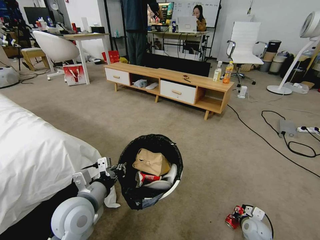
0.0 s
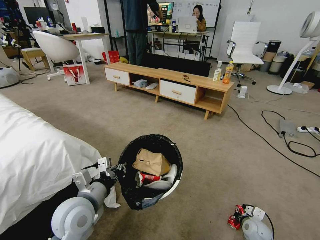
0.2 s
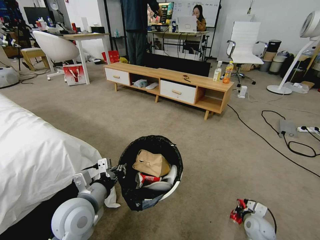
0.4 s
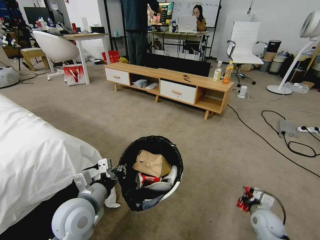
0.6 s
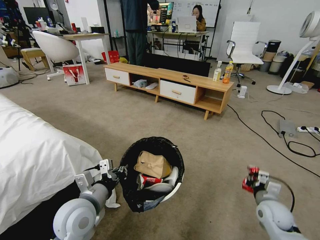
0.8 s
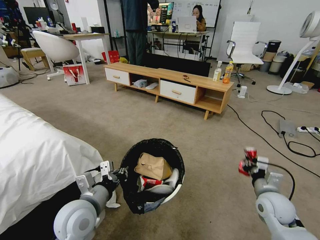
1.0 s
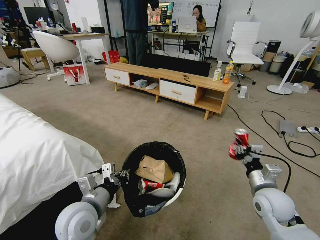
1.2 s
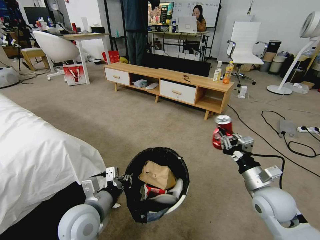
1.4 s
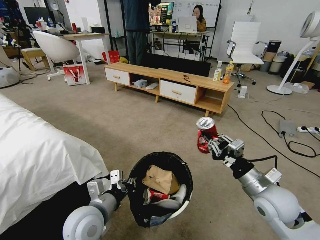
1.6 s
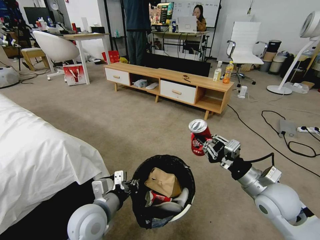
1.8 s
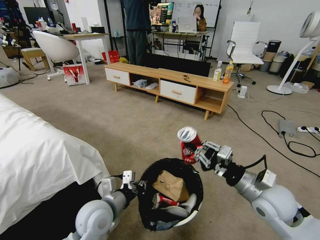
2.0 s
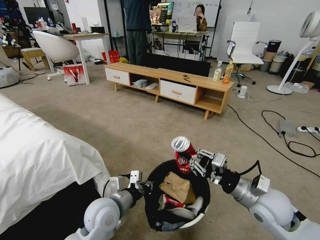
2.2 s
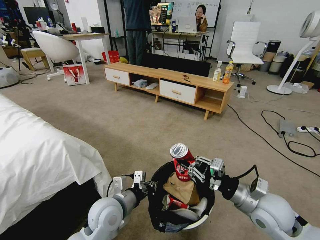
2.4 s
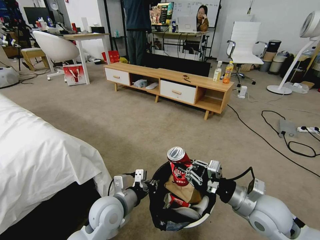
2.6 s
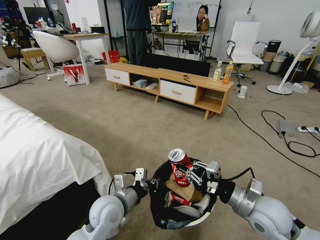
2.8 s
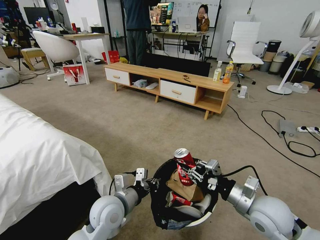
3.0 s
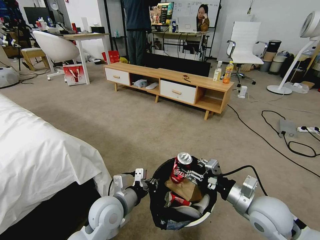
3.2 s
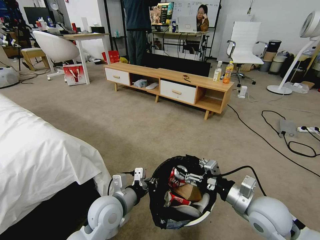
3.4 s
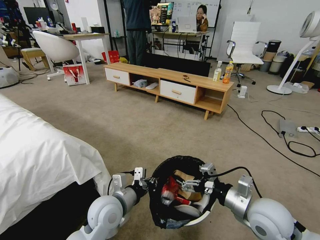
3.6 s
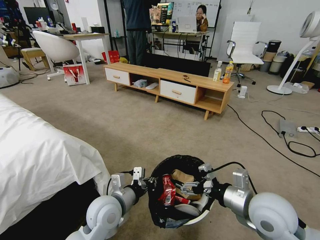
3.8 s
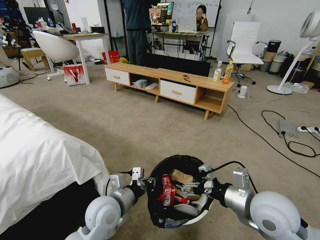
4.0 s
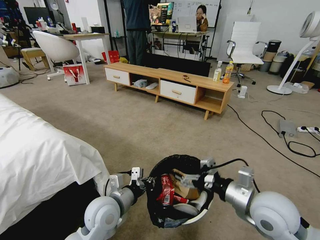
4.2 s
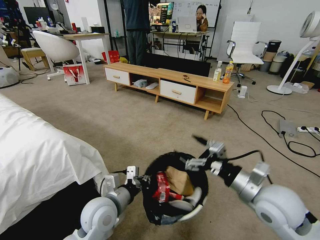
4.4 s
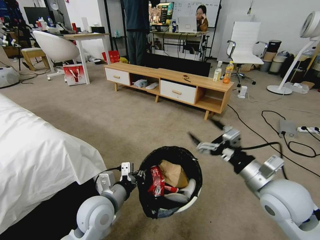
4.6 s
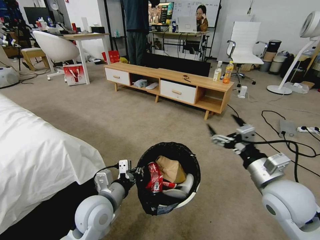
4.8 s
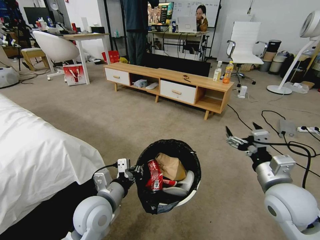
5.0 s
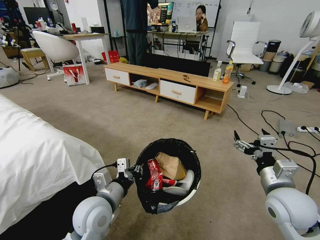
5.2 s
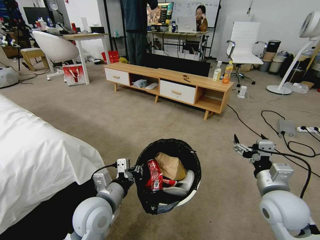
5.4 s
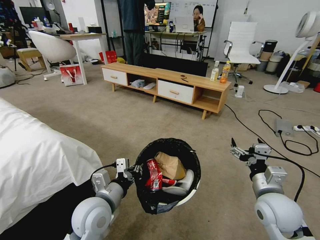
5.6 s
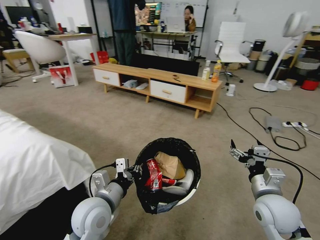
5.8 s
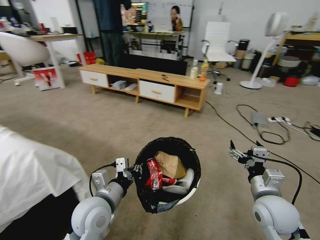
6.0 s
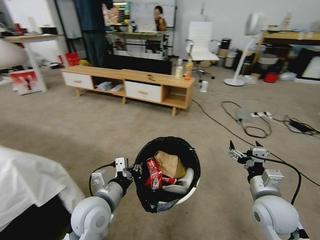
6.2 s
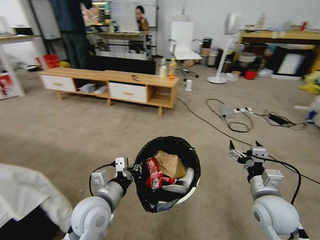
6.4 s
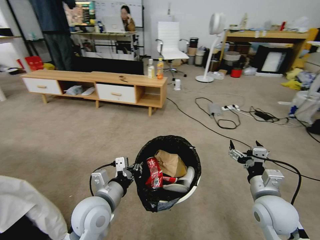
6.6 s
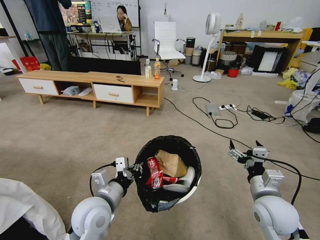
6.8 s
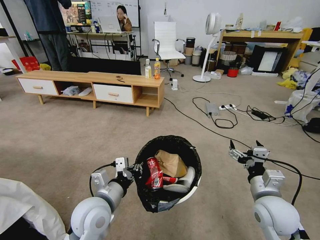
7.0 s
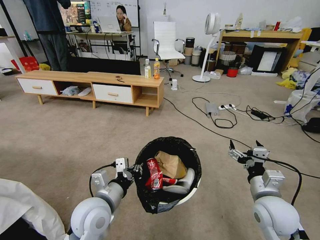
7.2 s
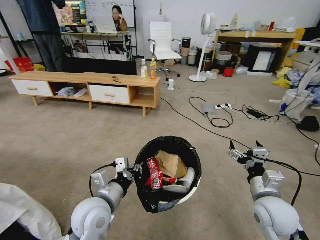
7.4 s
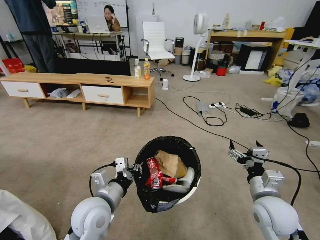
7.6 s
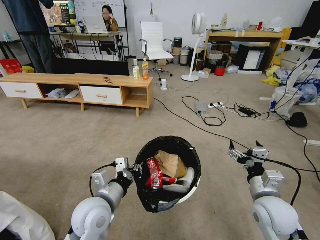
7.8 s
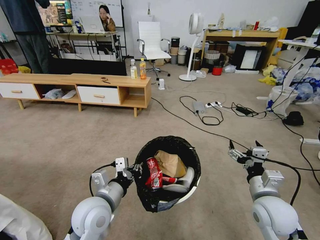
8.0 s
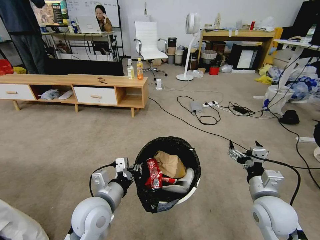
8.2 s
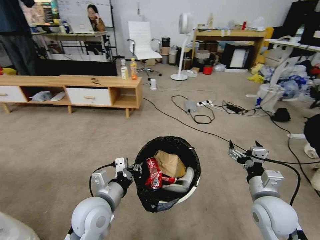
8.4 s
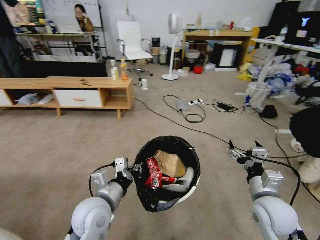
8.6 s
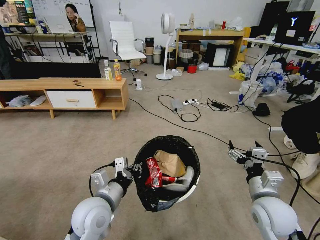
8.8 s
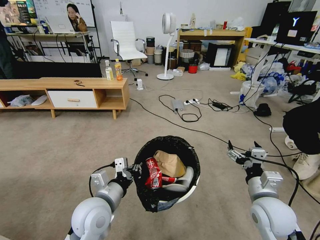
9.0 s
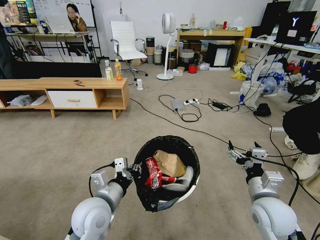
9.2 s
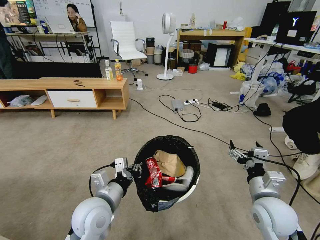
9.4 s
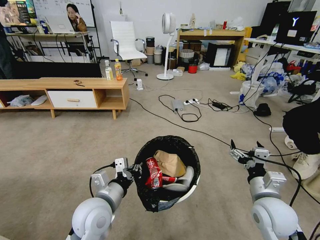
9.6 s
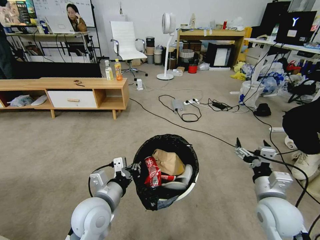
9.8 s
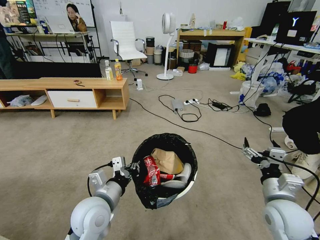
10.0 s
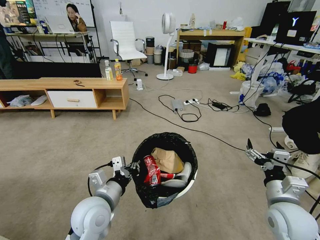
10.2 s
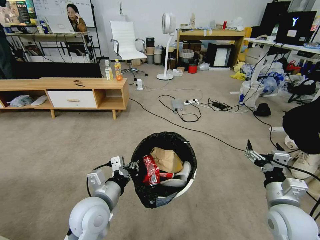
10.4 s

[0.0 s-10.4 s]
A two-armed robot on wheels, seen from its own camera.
Task of the whole recording: Pick up the trash bin and place the garbage on the floor into it.
0.0 to 1.4 s: The right gripper is displaced upward by roughly 25 cm.
1.4 to 3.0 s: The left gripper shifts approximately 5 cm to the right.
3.0 to 4.4 s: The right gripper heads upward, covering some 5 cm, and opens its fingers.
4.4 to 6.0 s: The right gripper heads downward, covering about 5 cm.
9.0 to 10.4 s: The grippers move only a little.
